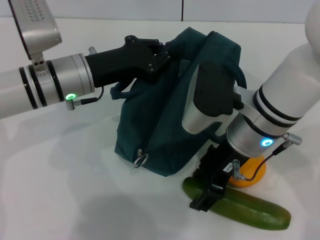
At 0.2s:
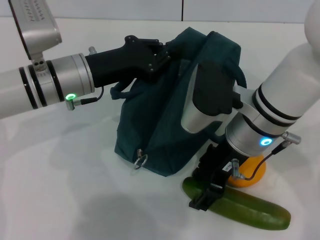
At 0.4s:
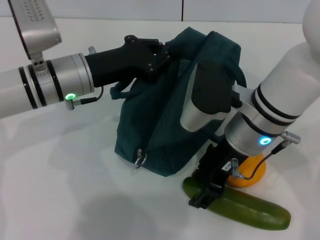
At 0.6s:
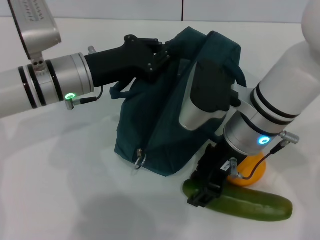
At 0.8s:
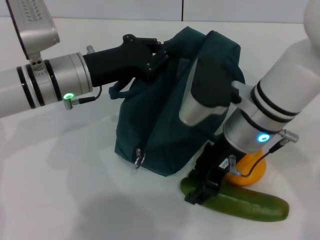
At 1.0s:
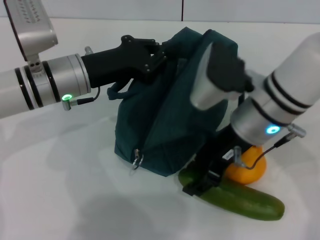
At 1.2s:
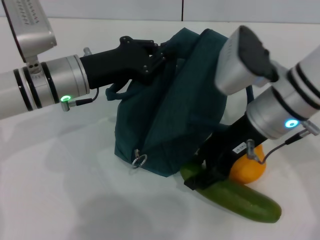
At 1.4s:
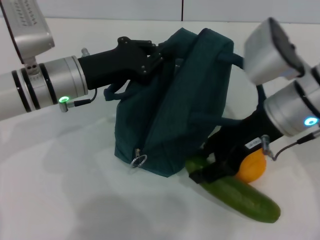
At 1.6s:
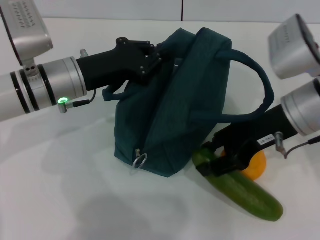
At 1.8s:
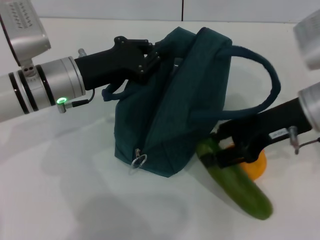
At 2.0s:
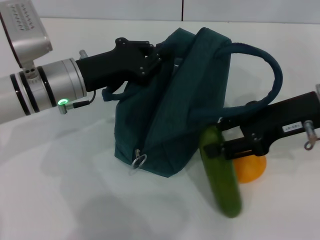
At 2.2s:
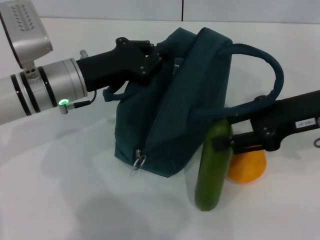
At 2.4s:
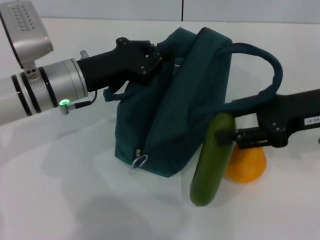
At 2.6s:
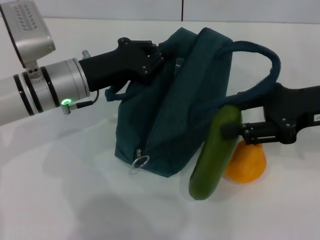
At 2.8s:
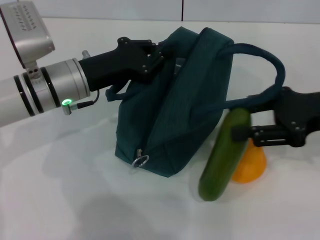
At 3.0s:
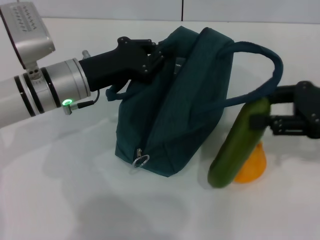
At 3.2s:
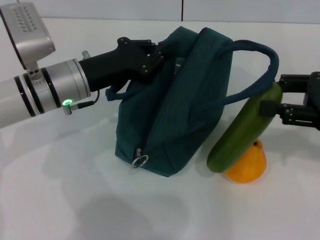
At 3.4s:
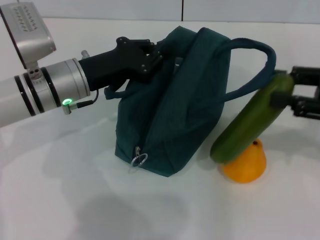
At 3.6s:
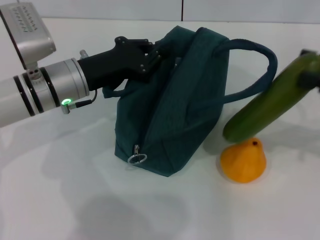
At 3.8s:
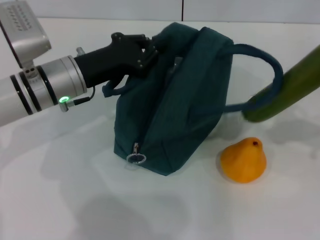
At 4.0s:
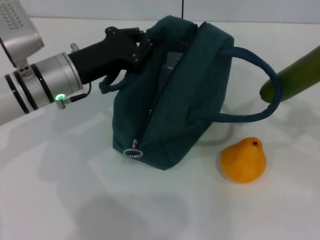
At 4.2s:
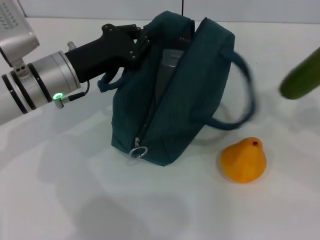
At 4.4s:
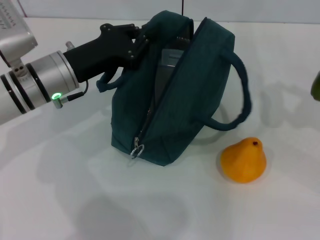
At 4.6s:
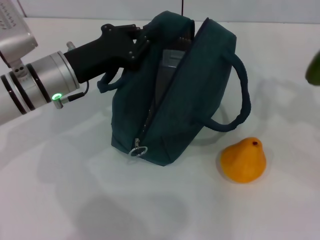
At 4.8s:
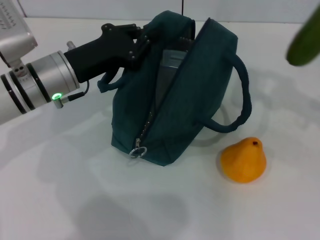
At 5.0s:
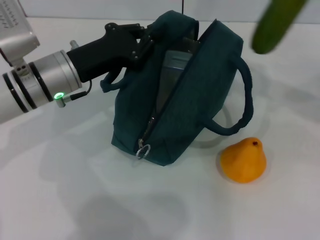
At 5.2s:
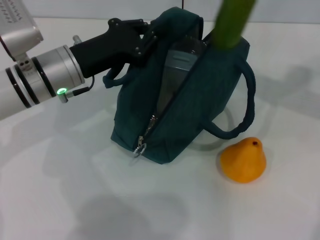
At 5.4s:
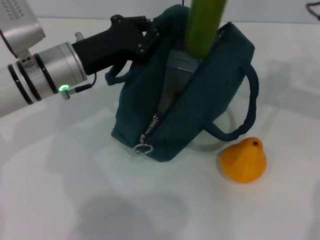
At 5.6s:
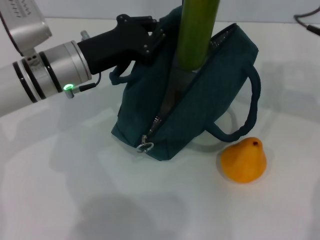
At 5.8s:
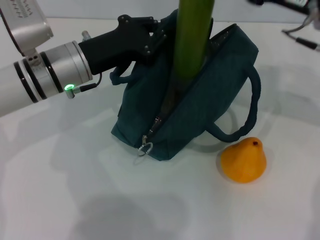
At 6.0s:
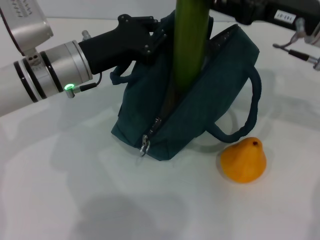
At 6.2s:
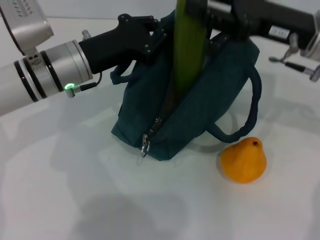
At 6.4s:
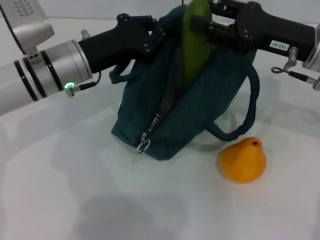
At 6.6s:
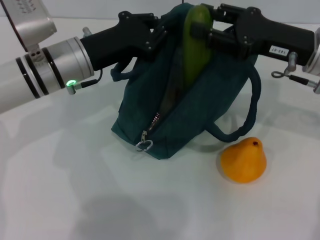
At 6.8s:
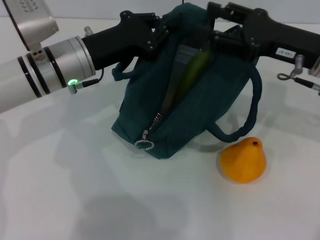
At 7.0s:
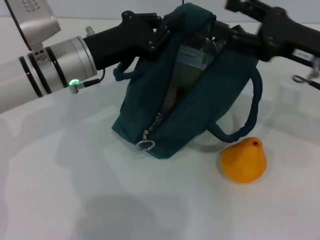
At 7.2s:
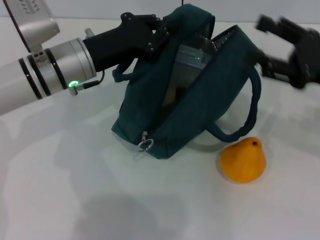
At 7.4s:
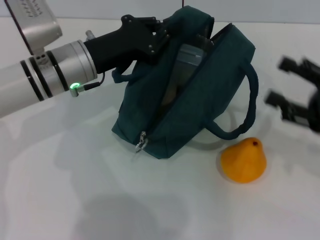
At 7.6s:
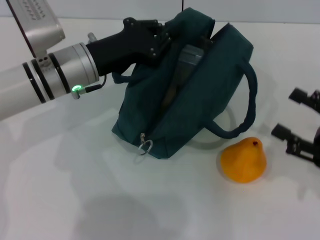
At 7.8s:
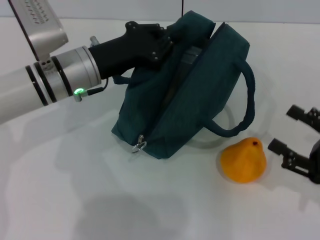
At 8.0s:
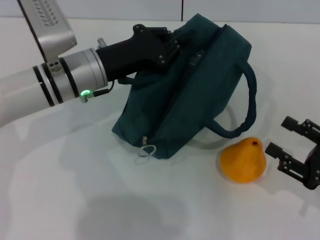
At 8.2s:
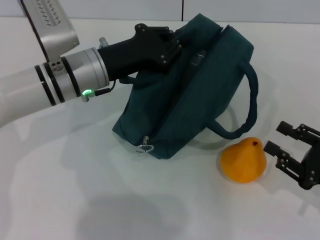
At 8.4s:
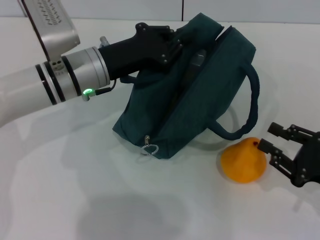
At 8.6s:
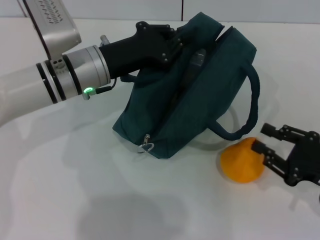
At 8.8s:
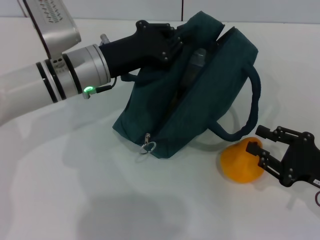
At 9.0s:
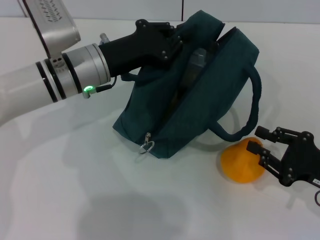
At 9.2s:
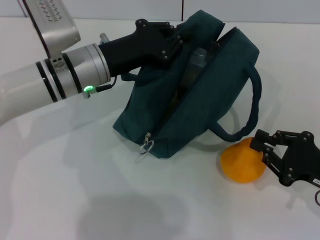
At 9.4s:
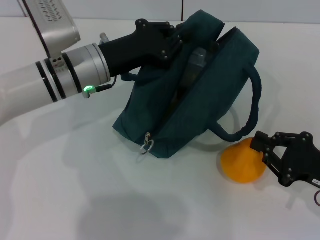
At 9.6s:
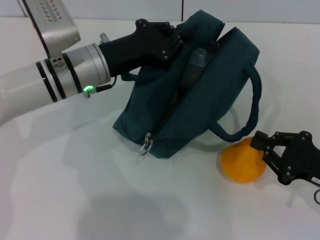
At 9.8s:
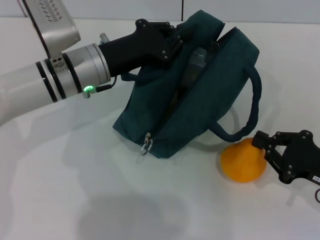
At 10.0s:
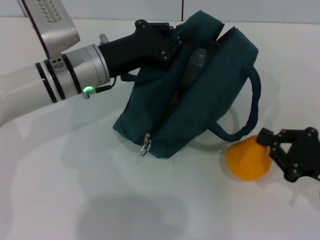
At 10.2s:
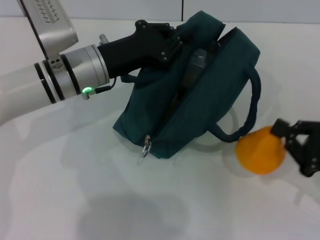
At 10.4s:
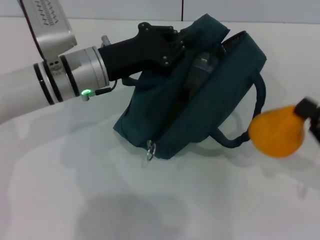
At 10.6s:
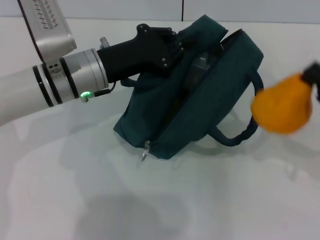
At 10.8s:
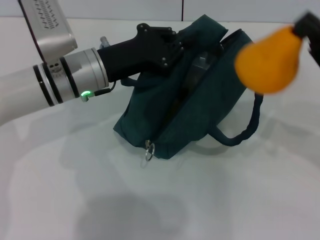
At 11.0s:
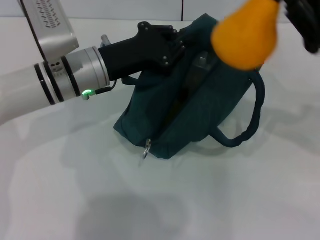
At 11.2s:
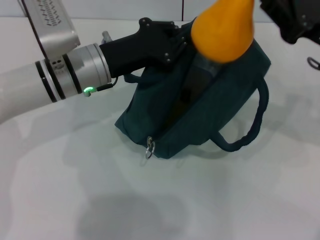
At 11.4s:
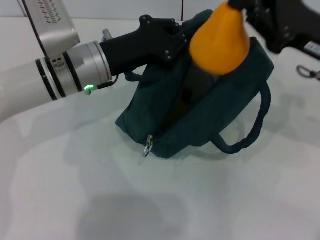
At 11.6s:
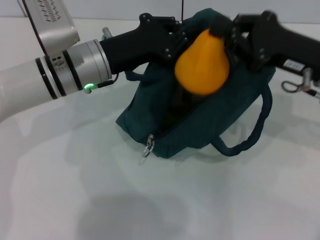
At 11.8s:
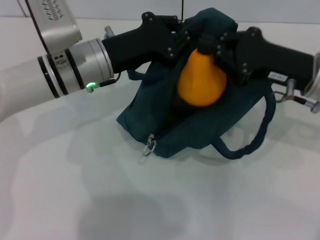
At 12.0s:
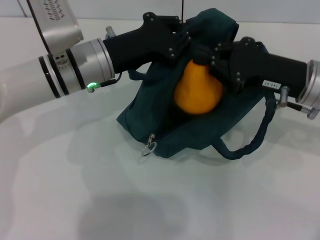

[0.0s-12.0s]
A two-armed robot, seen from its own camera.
Step, 0.6s to 6.8s: Put the cucumber into the lunch bag with your right hand.
Step, 7.0s to 9.6s: Grab the pear with your right hand.
0.0s to 1.6s: The right gripper goes some 10 cm to the right.
1.6s to 3.0s: The right gripper heads to the right, covering some 10 cm.
3.0s to 4.4s: The right gripper goes about 10 cm to the right.
4.4s to 6.0s: The right gripper moves to the left and forward, some 20 cm.
6.0s to 7.6s: The right gripper moves backward, downward and to the right, some 20 cm.
7.6s to 9.0s: The right gripper closes its fingers.
9.0s to 10.4s: The right gripper shifts by some 5 cm, and closes.
10.4s to 12.0s: The right gripper travels forward and to the left by about 15 cm.

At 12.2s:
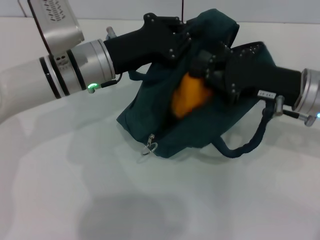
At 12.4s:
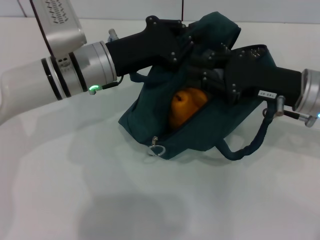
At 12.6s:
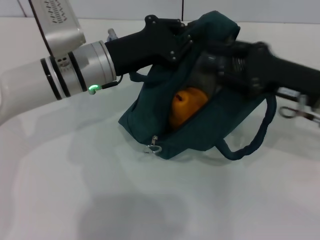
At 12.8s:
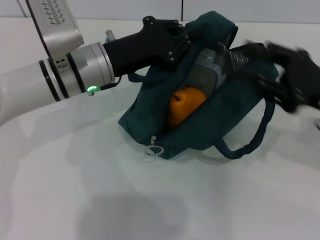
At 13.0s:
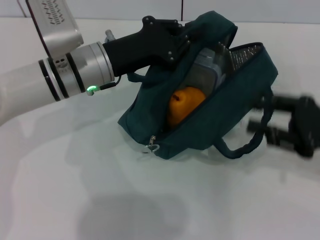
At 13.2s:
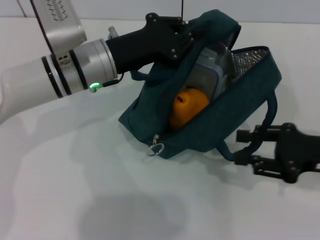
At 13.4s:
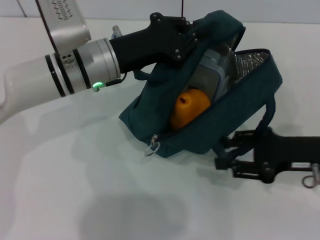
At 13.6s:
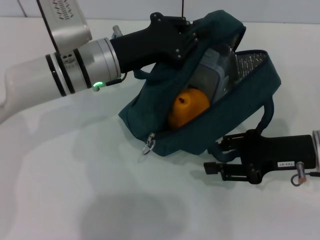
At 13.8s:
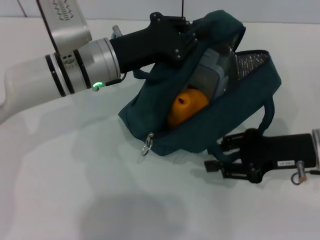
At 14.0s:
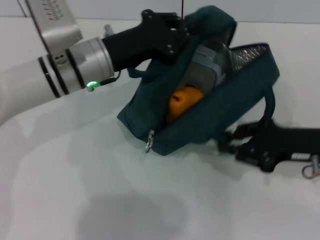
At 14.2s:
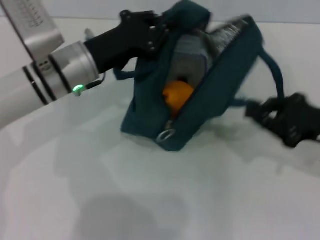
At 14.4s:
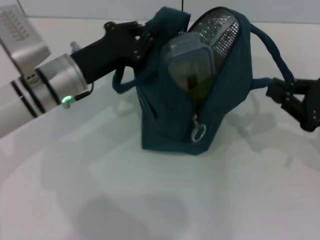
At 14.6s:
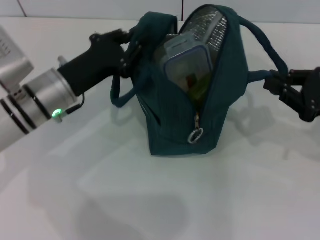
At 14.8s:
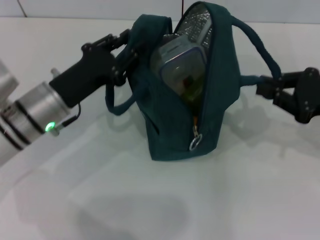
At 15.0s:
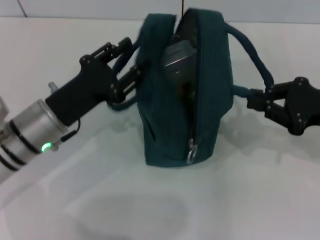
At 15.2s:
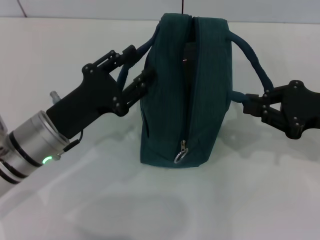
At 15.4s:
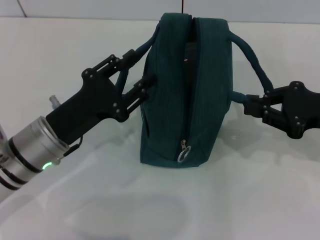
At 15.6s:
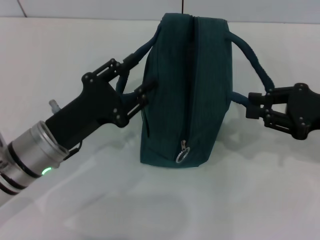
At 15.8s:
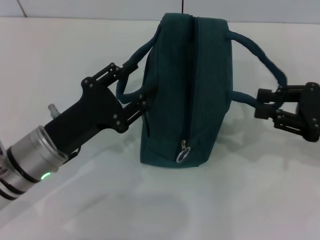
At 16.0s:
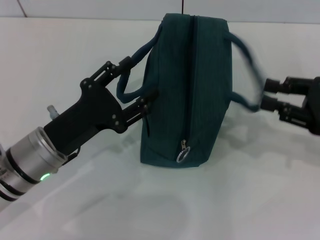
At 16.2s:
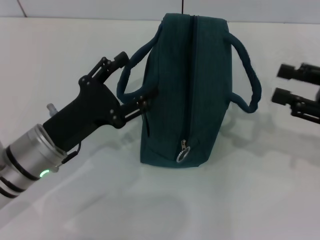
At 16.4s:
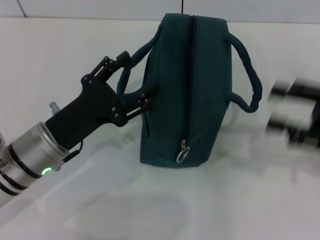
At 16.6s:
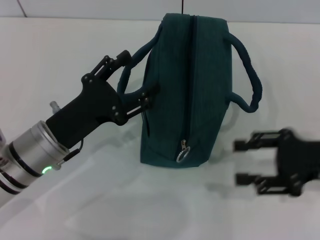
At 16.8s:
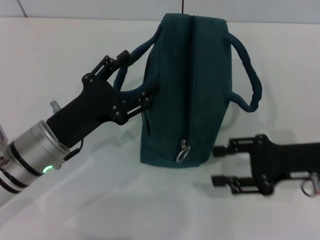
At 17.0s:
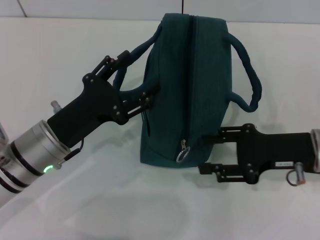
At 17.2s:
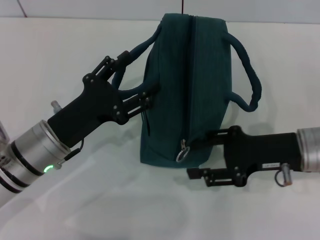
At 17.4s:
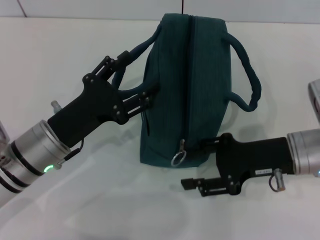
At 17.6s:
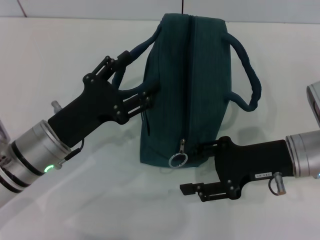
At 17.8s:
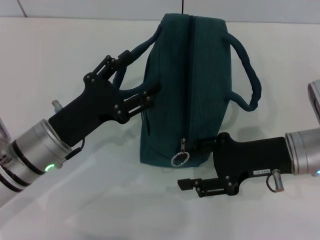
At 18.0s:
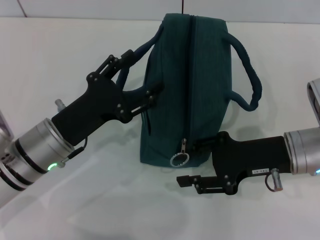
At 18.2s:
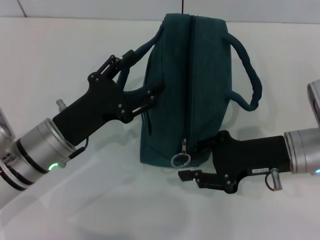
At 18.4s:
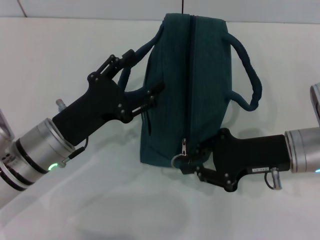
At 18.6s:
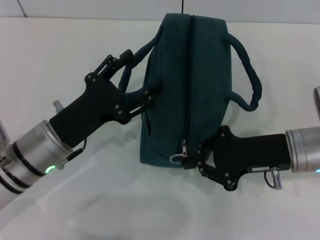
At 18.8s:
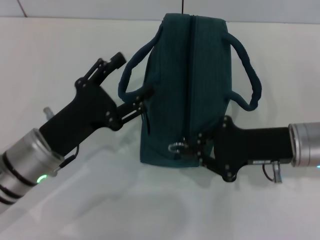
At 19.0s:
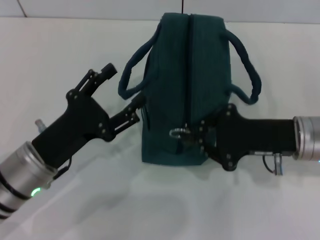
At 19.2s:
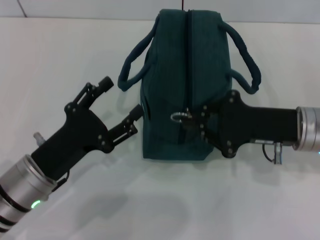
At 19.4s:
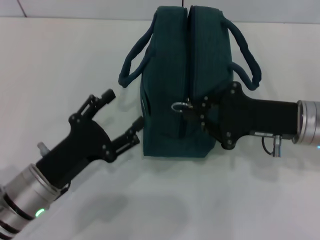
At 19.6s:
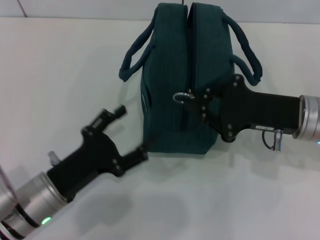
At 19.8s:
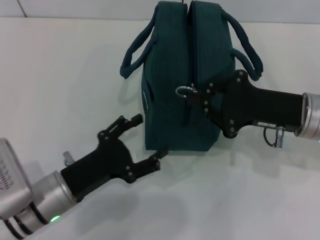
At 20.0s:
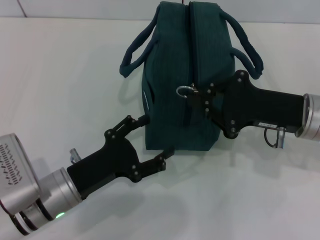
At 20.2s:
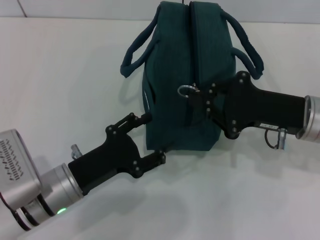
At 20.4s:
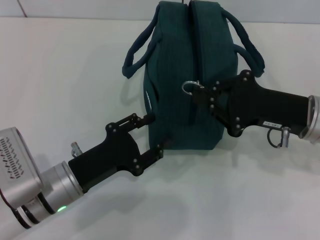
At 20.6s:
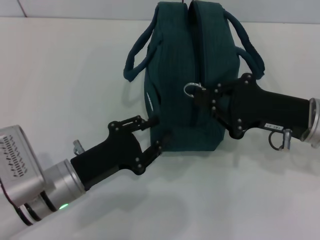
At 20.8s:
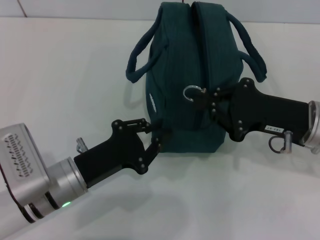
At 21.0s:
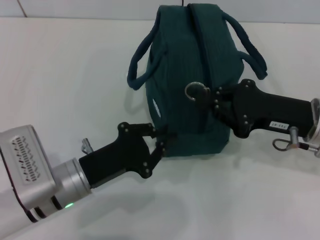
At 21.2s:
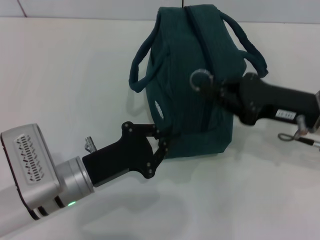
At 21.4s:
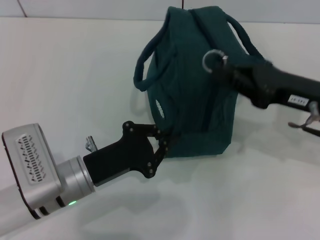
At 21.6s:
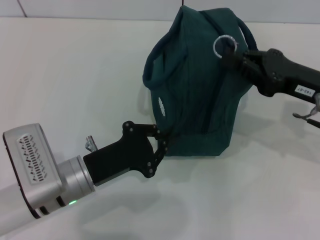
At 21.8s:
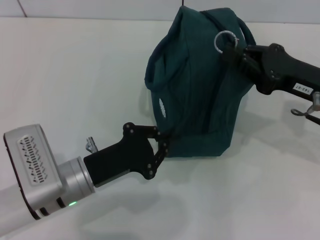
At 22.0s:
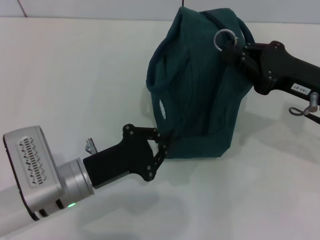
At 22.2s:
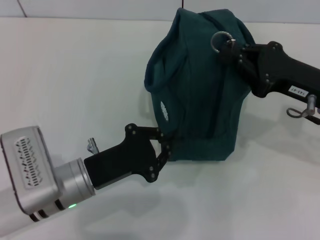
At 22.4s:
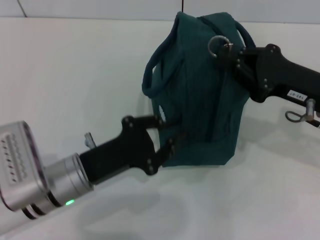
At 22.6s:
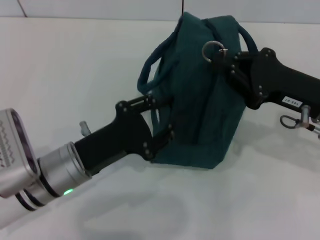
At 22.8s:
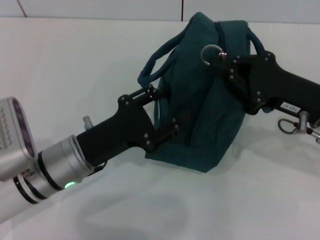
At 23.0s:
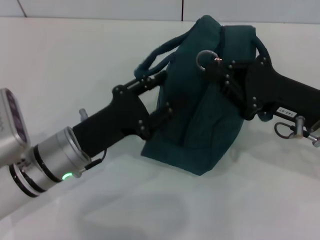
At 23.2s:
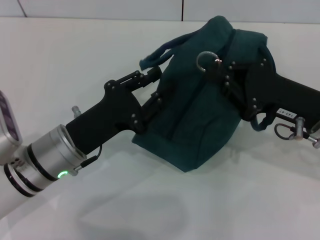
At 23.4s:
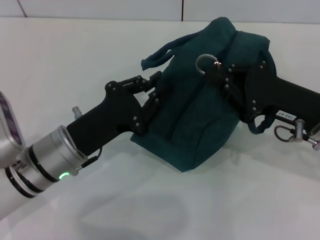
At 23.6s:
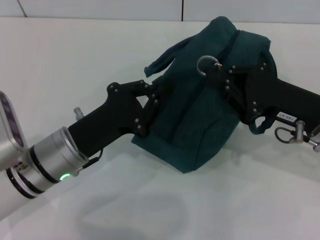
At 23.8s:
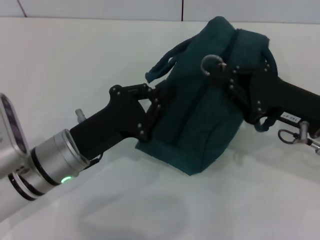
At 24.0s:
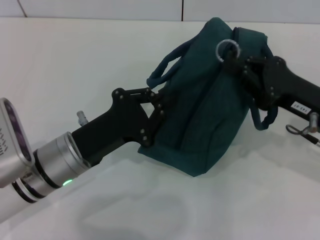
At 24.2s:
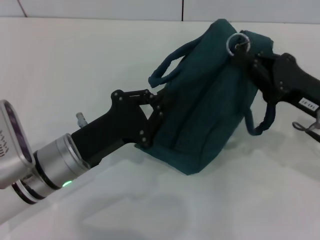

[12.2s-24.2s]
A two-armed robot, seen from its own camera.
Step, 14.0s to 15.0s: Hold the lunch bag with your left hand.
Step, 15.2s to 15.6s: Hold the lunch bag with your right hand.
12.2s to 13.8s: The right gripper opens its fingers.
13.8s to 15.2s: The right gripper shifts by some 5 cm, and closes its fingers. The left gripper shifts roughly 15 cm backward, to the left and downward, and opens its fingers.
15.2s to 16.6s: The left gripper opens. Meanwhile the right gripper opens up.
16.6s to 18.2s: The right gripper shifts roughly 10 cm to the left.
18.2s to 19.8s: The right gripper closes its fingers. Meanwhile the left gripper travels backward by about 5 cm.
19.8s to 21.2s: The left gripper closes.
22.6s to 24.2s: The left gripper opens, then closes again.
